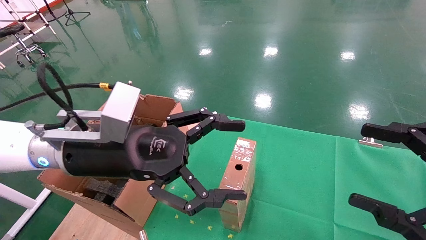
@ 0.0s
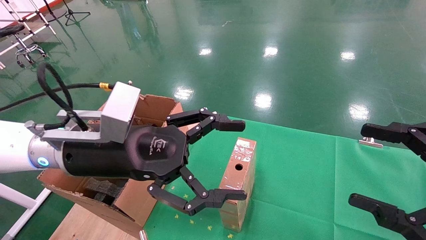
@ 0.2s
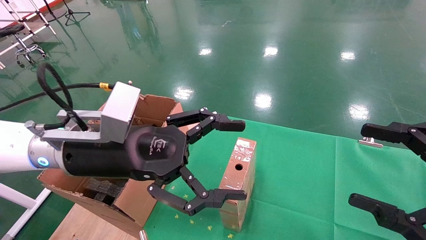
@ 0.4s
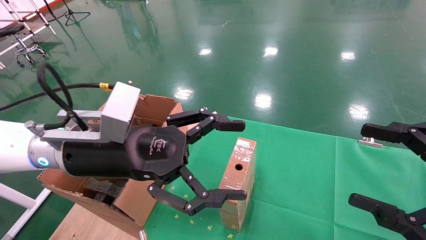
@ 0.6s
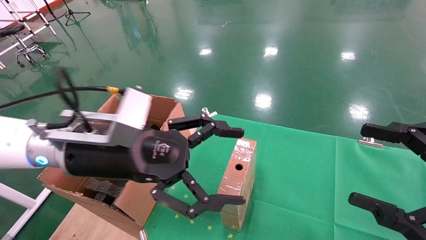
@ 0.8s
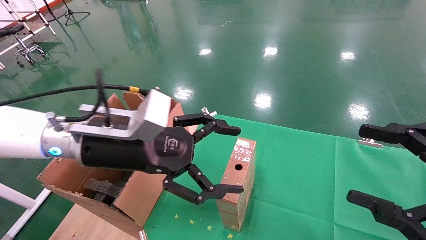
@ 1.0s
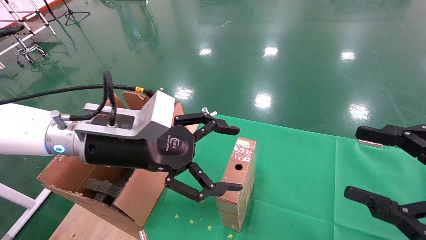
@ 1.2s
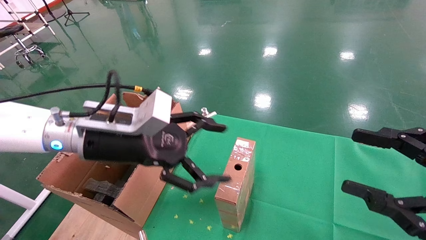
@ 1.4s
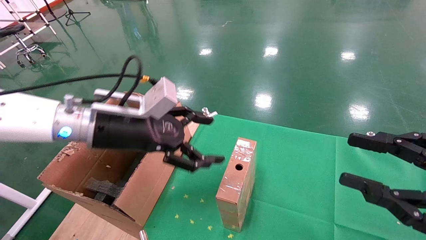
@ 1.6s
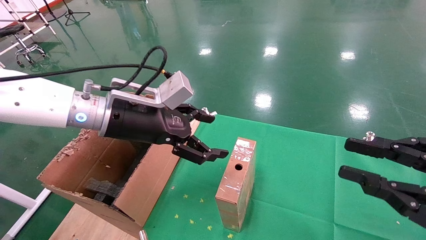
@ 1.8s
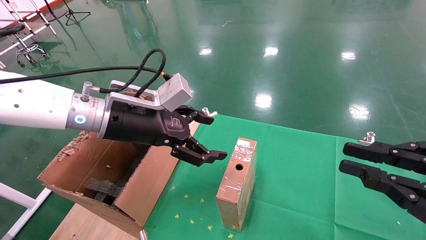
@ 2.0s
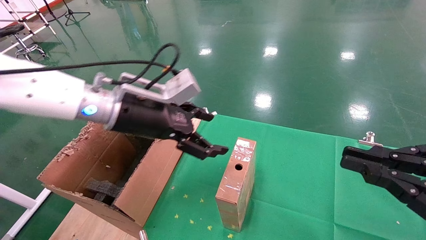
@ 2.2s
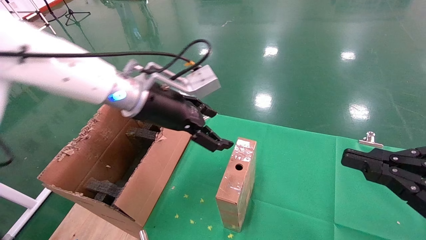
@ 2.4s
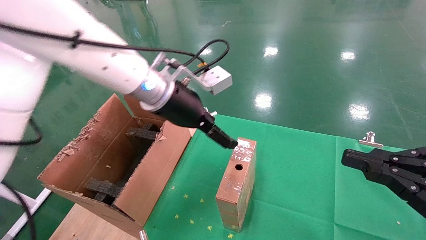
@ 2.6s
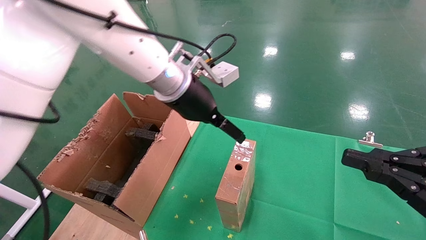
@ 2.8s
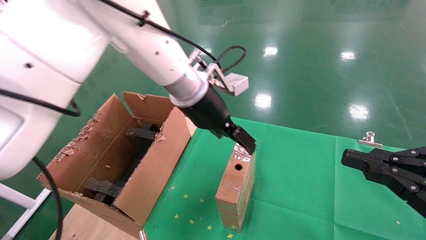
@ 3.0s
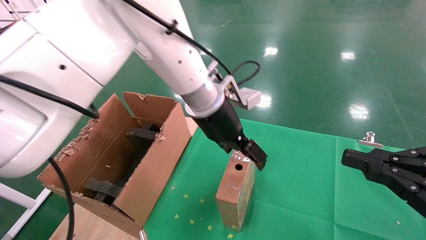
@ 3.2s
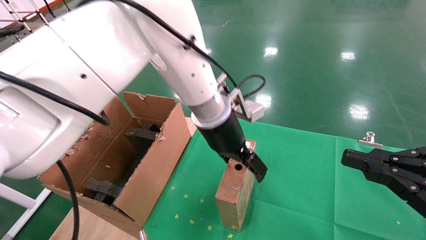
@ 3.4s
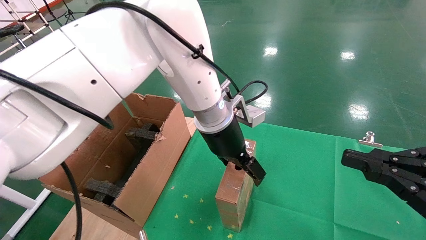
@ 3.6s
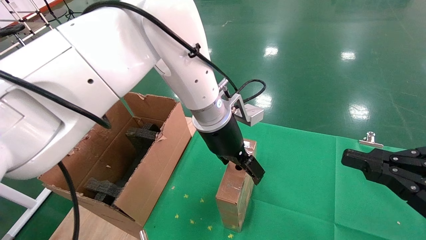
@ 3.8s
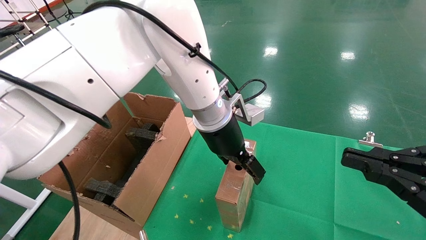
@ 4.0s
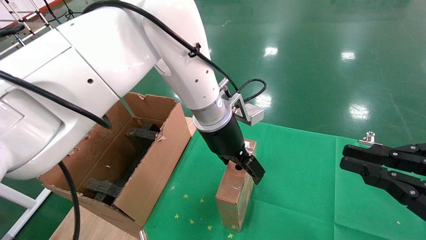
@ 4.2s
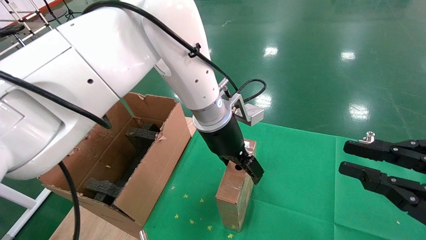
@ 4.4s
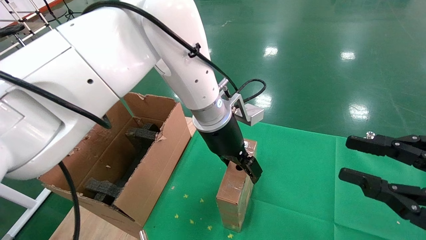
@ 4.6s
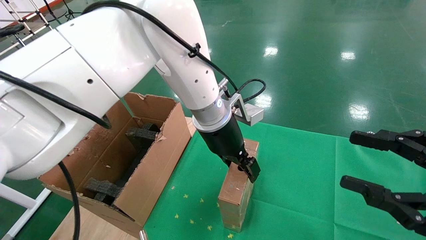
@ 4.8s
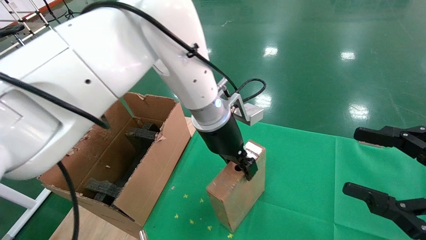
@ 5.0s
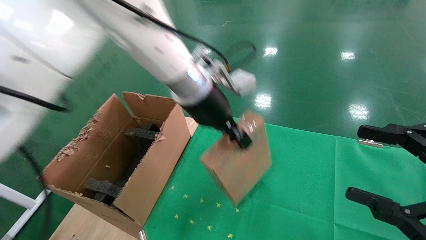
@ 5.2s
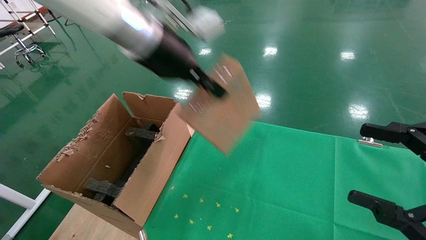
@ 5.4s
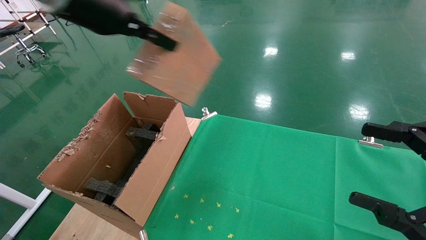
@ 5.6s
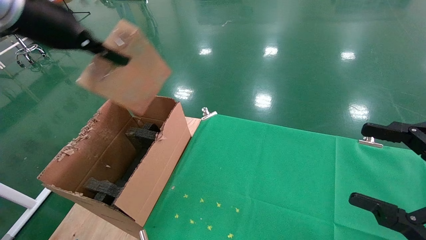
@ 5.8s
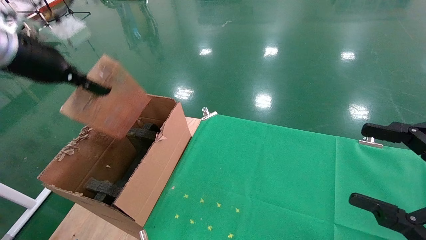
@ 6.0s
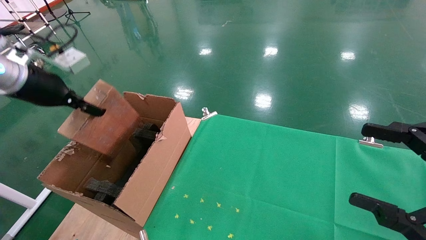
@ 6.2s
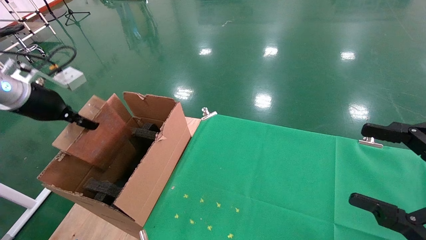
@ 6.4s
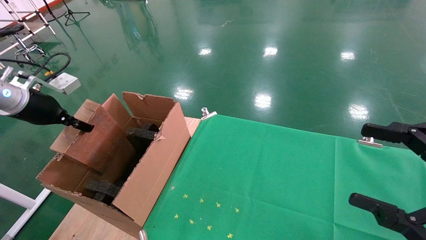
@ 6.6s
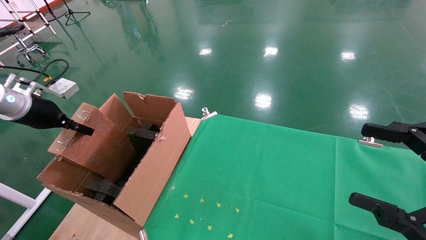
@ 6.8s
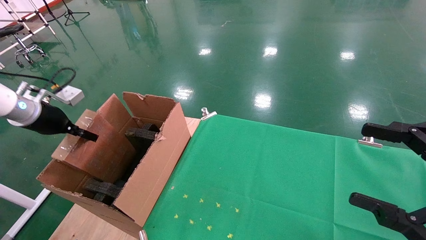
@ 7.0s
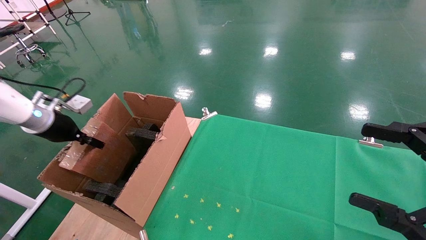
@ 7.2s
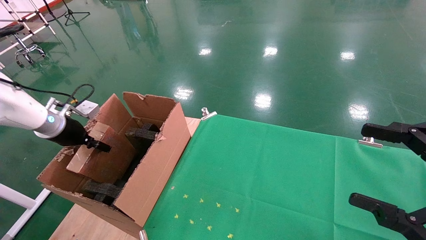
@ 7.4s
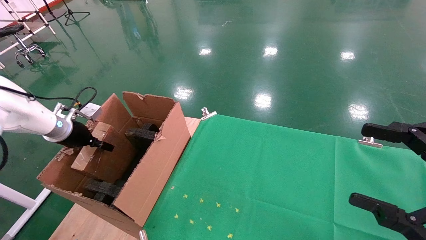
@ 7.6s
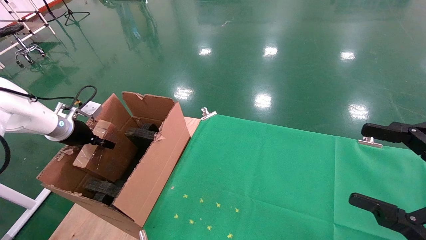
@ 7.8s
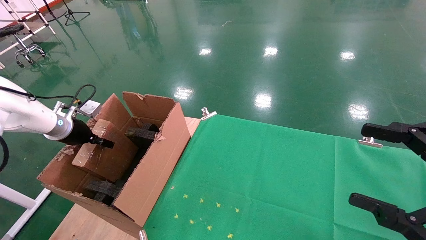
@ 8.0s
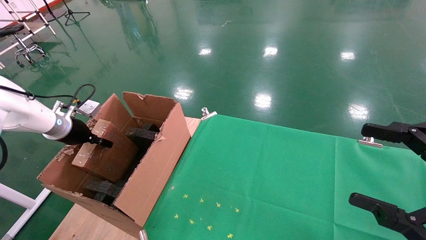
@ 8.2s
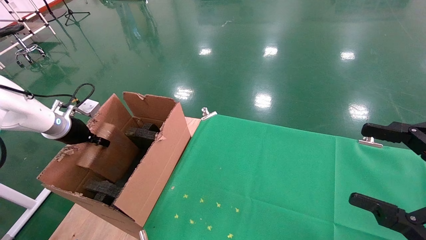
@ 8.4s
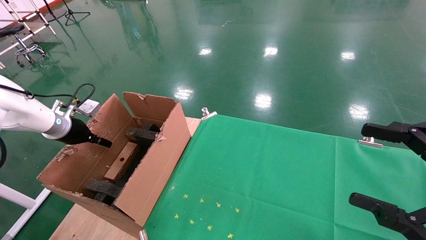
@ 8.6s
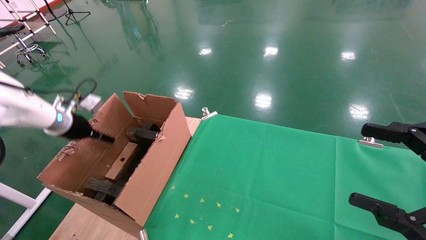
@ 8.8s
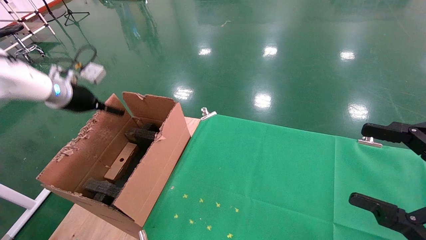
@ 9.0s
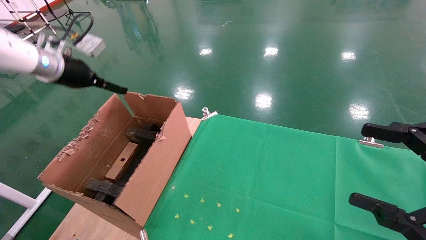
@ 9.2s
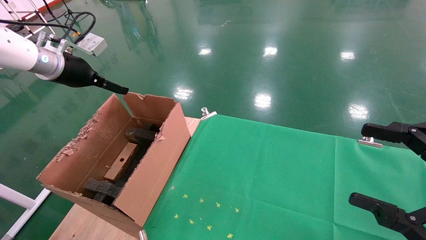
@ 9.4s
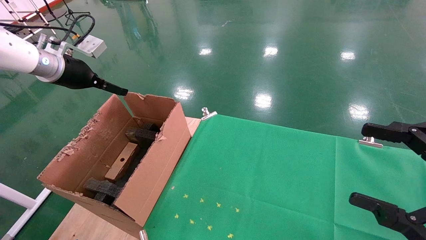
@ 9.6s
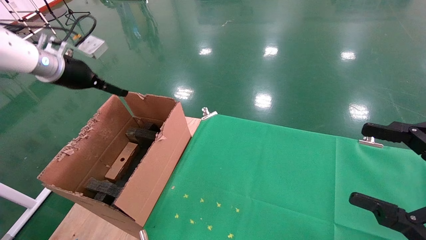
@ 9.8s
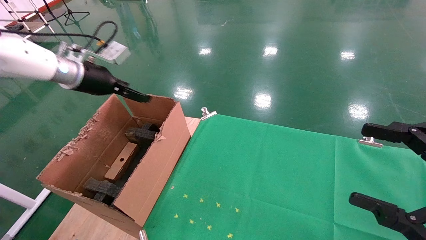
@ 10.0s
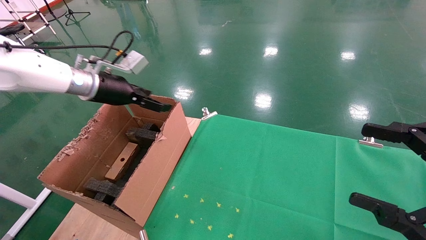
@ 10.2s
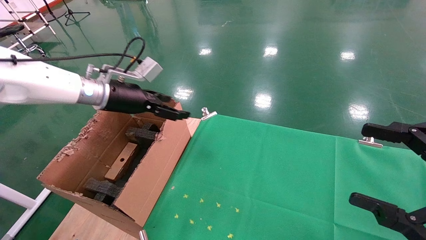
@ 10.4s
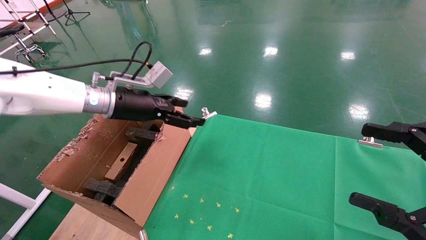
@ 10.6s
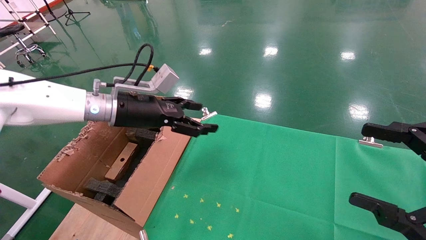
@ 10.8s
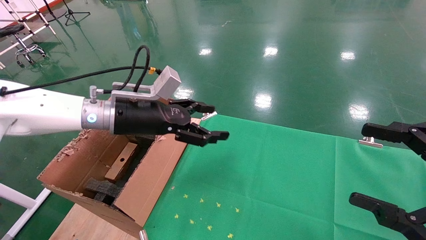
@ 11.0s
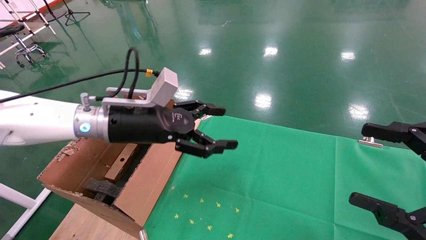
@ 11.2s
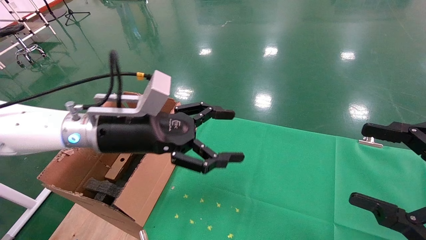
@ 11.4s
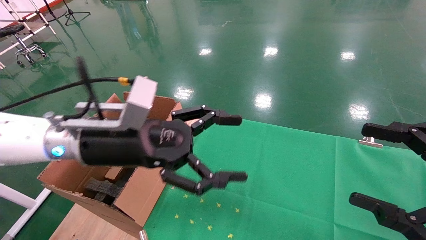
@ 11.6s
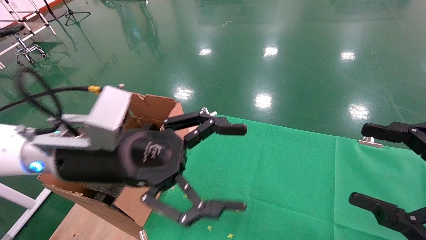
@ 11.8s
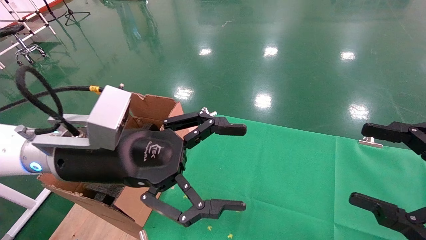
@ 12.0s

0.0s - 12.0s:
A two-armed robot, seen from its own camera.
Task of the whole recording: using a robotic arm to pick up a cardboard box and palace it the carton.
Step, 0.8s - 4.8s: Pick up the mouse and the power cord paper box.
Step, 5.0s - 8.8s: Place the mouse and the power cord paper box into the container.
0.0s - 1.6s: The right gripper closes its fingers. Meanwhile the left gripper travels forward by about 5 cm.
1.6s - 3.0s: The left gripper moves to the right and forward, roughly 15 cm, while the right gripper closes up.
3.0s - 4.4s: The left gripper moves some 5 cm.
4.4s - 6.0s: The right gripper opens up. Meanwhile the left gripper shifts approximately 30 cm to the left, and closes up.
6.0s - 7.6s: The left gripper moves downward, to the left and forward, roughly 25 cm.
7.6s - 9.0s: The left gripper shifts roughly 10 cm upward, and opens up.
9.0s - 10.4s: The left gripper shifts roughly 15 cm to the right.
10.4s - 12.0s: The left gripper shifts approximately 20 cm backward and to the right.

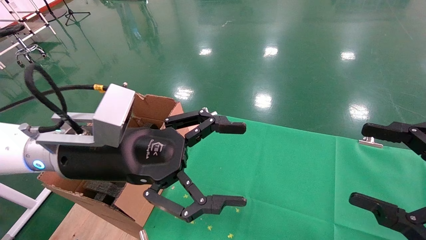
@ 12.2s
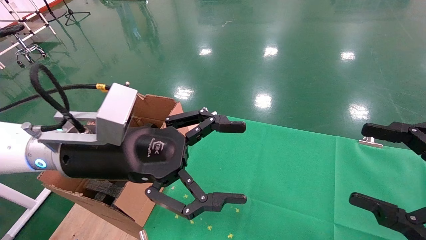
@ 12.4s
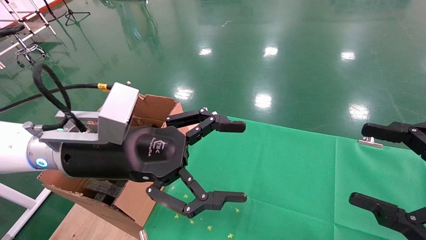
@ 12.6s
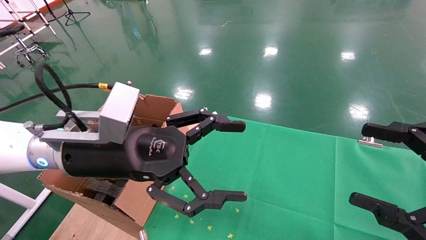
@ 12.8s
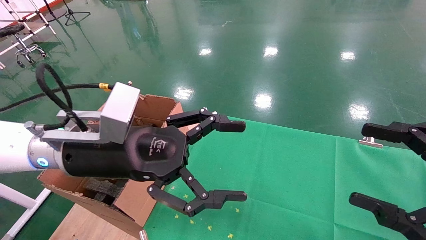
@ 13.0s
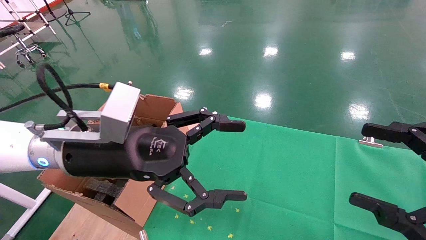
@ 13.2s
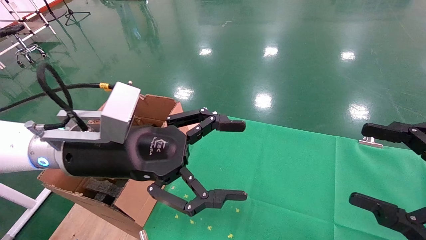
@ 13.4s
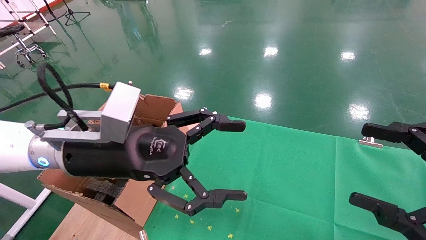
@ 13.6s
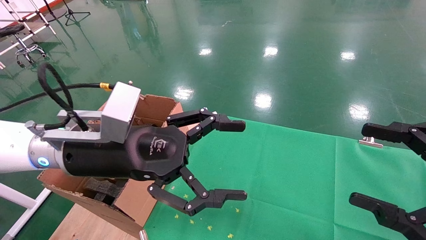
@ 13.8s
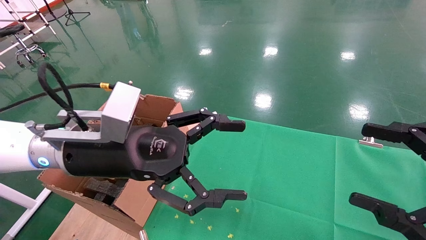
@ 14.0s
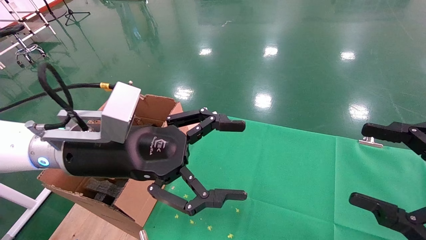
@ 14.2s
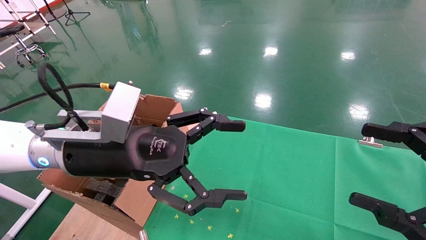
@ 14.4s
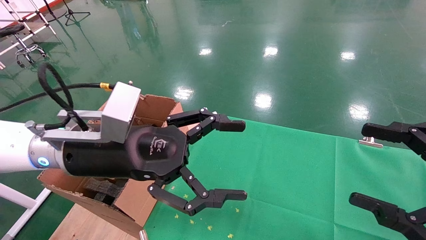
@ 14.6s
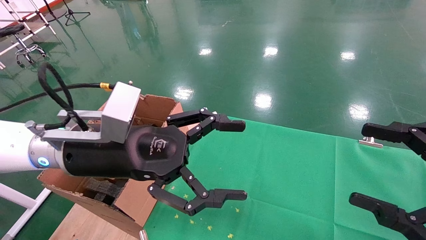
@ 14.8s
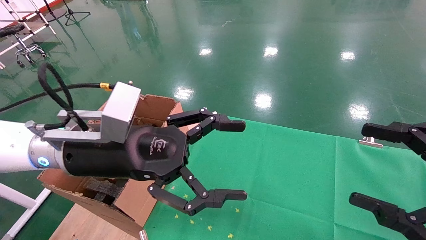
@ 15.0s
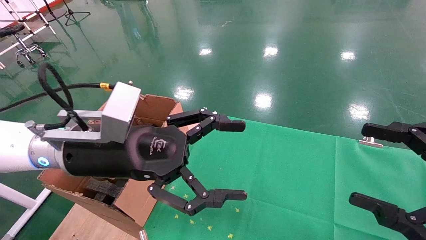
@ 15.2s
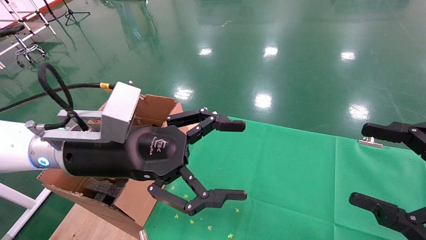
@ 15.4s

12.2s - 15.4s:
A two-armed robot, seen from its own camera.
Task of the whole recording: using a robotic arm to pick up a cardboard box and palace it the carton.
12.2s - 15.4s: Neither gripper changes place.

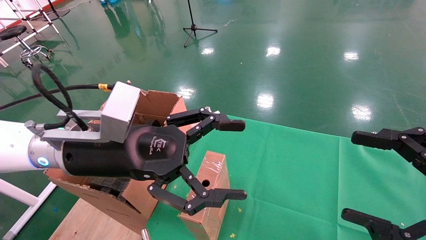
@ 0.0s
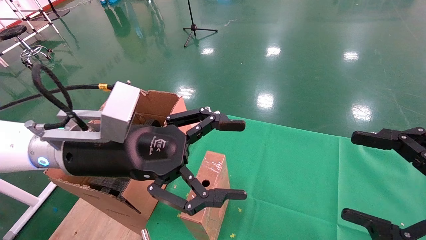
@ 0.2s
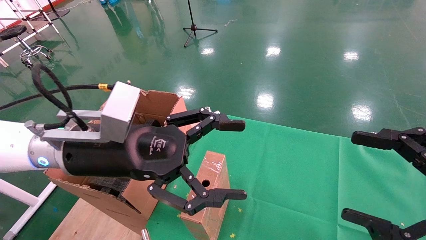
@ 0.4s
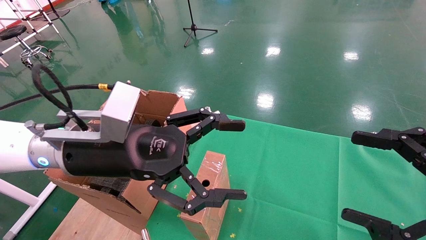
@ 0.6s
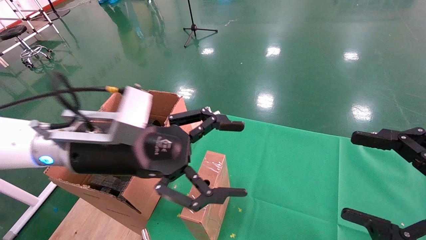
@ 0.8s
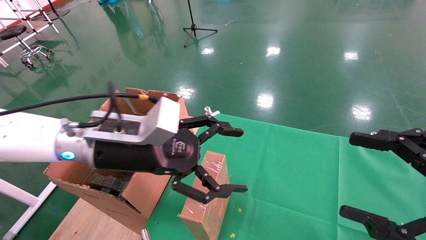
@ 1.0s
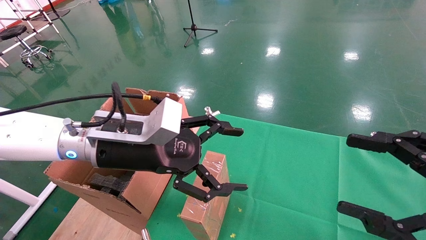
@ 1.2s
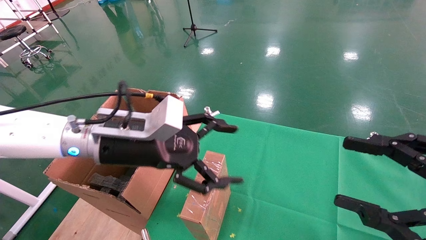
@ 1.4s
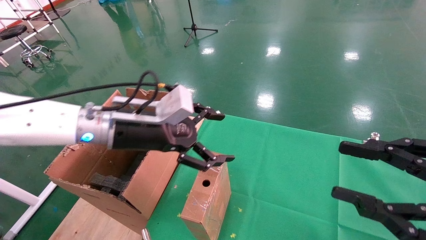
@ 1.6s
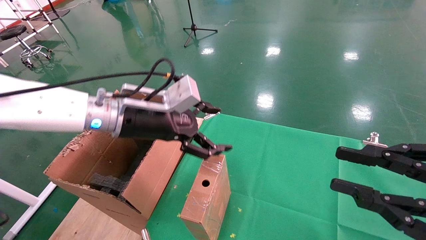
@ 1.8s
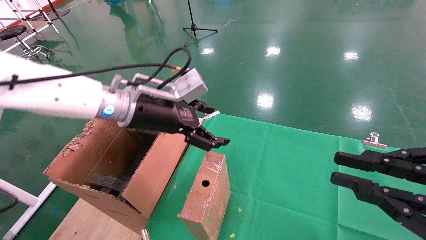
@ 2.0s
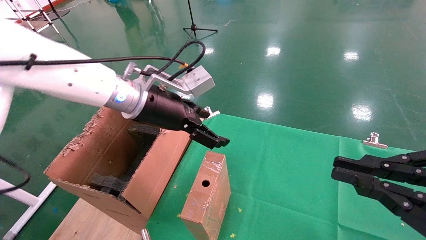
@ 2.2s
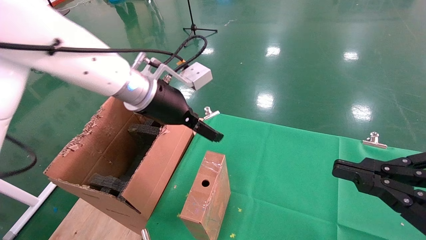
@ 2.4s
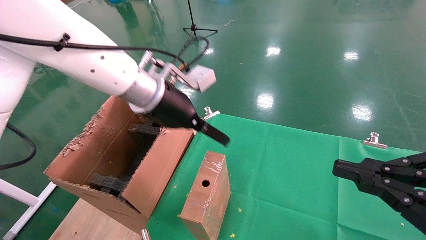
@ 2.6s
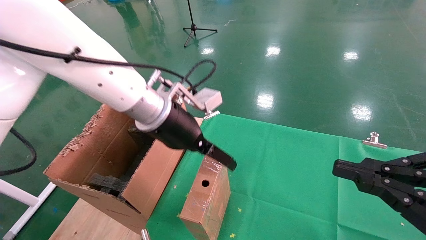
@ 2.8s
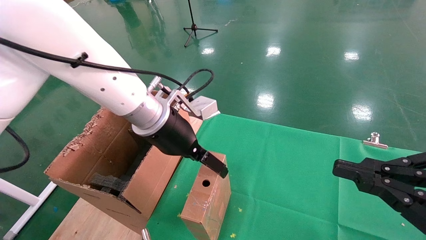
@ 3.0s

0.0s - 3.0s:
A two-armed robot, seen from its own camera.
Task of the whole recording: using a robotic arm to pick up a cardboard box and palace it the carton.
0.0s - 1.6s: The right gripper closes its fingers. Meanwhile the left gripper travels forward by roughly 10 cm.
1.6s - 3.0s: The left gripper goes roughly 5 cm to the right, while the right gripper closes its fingers.
